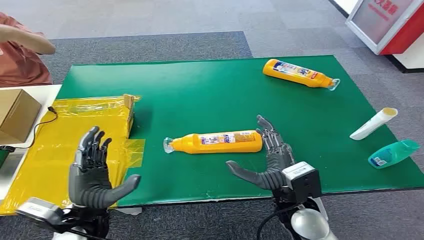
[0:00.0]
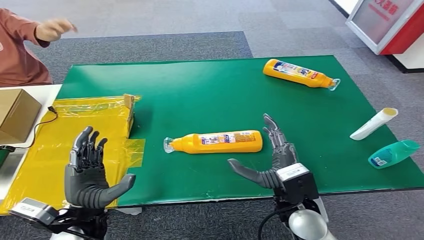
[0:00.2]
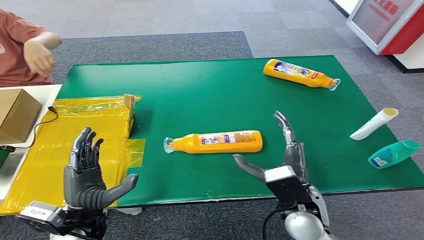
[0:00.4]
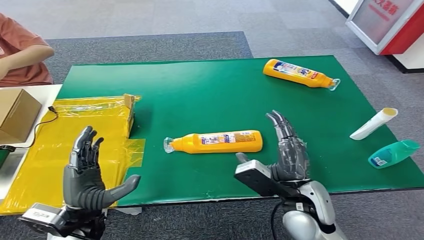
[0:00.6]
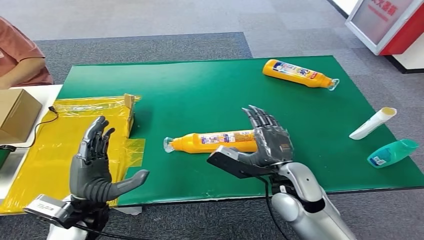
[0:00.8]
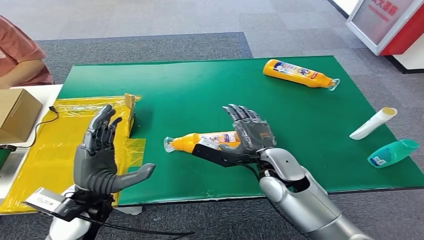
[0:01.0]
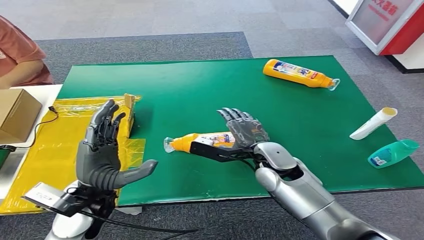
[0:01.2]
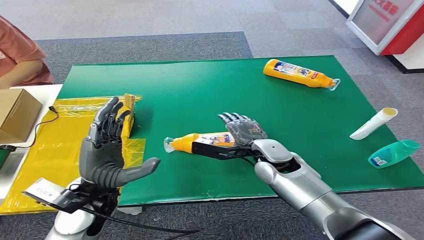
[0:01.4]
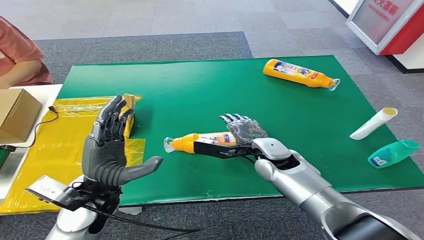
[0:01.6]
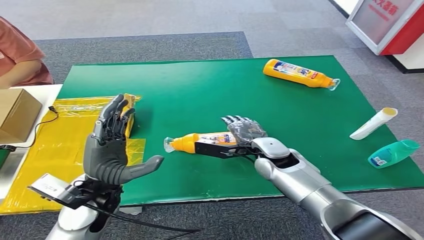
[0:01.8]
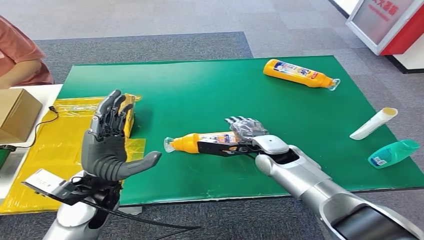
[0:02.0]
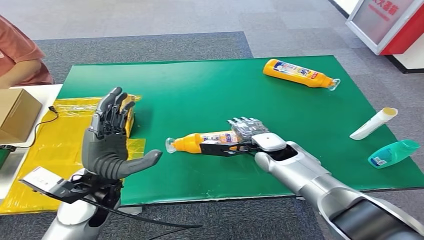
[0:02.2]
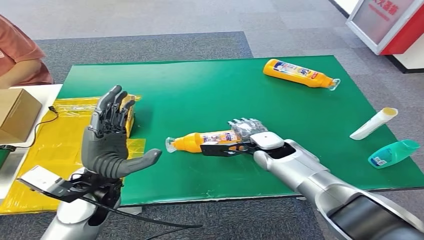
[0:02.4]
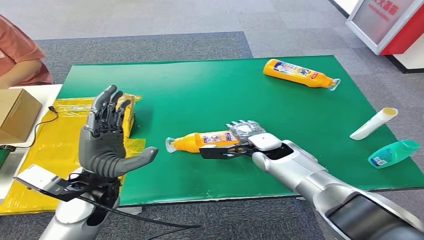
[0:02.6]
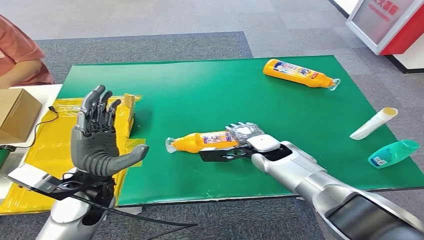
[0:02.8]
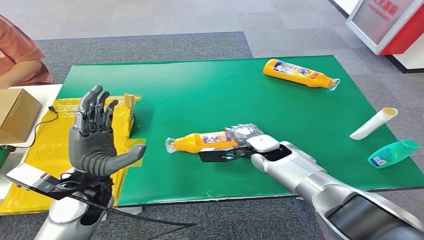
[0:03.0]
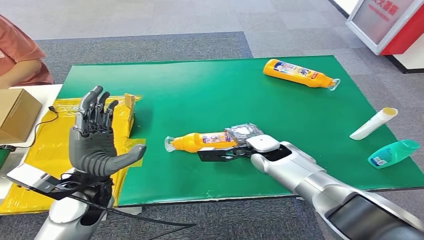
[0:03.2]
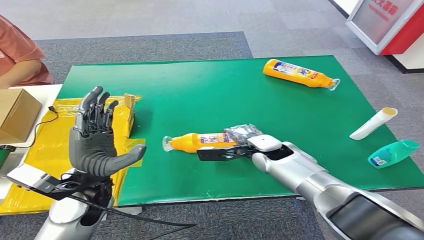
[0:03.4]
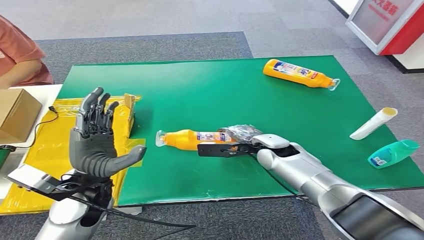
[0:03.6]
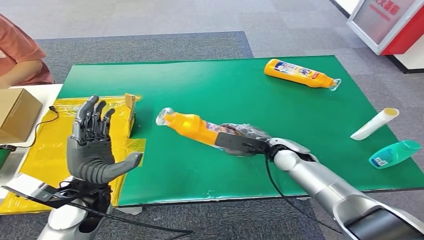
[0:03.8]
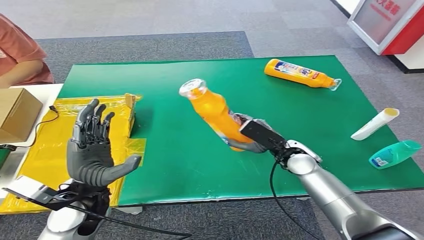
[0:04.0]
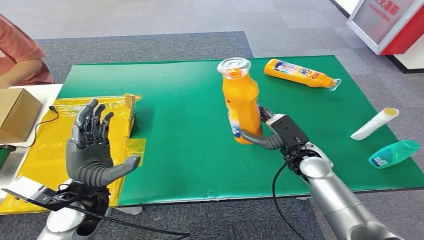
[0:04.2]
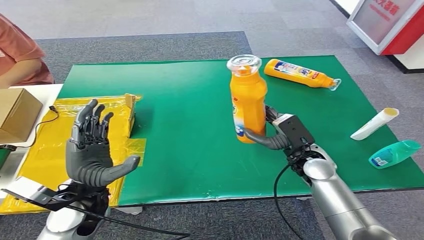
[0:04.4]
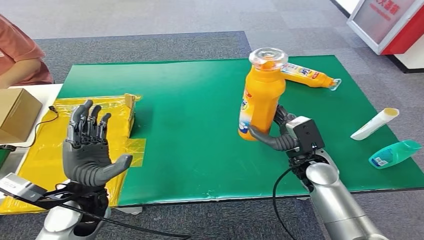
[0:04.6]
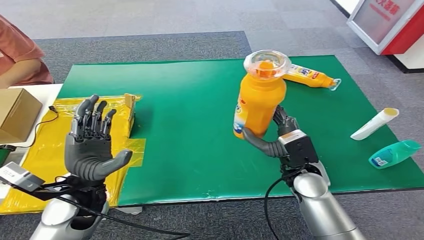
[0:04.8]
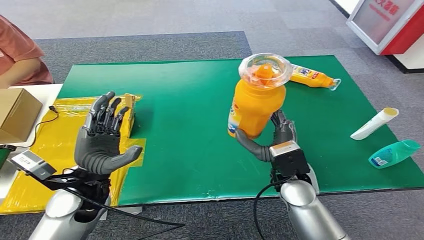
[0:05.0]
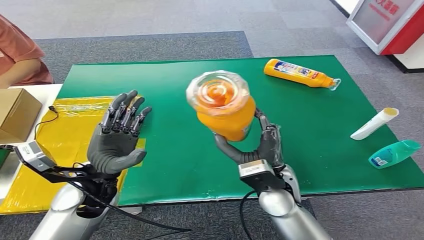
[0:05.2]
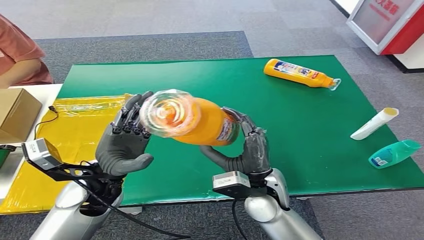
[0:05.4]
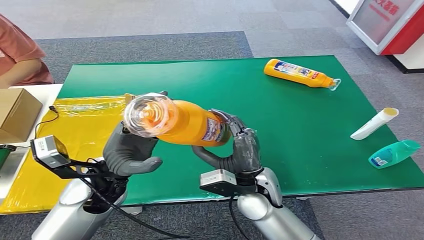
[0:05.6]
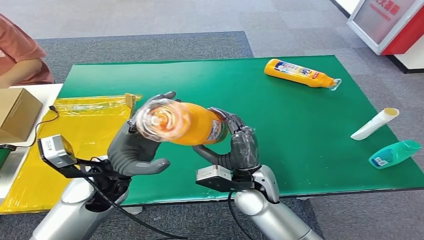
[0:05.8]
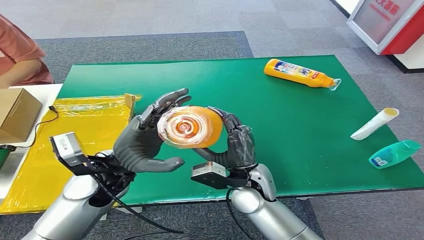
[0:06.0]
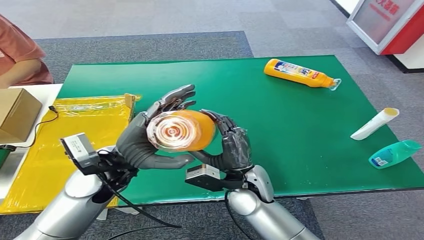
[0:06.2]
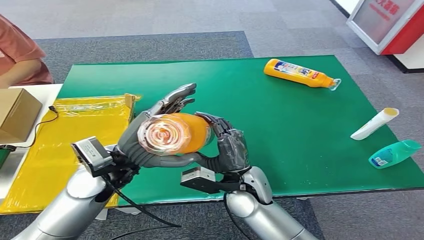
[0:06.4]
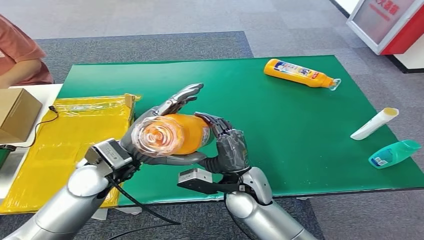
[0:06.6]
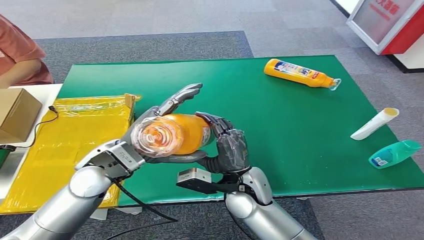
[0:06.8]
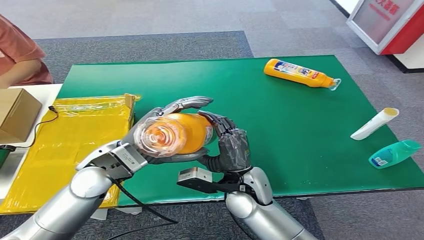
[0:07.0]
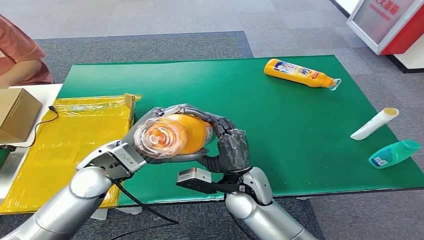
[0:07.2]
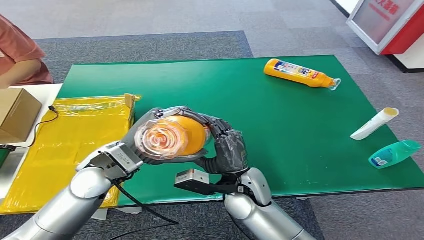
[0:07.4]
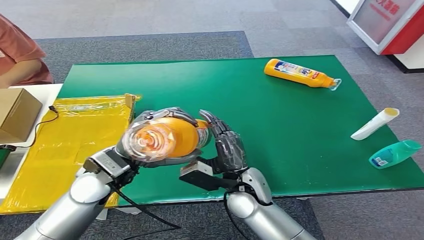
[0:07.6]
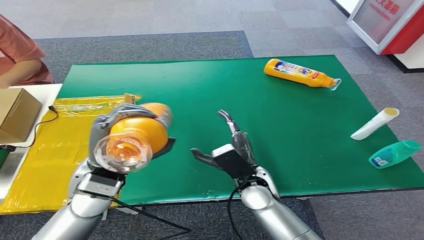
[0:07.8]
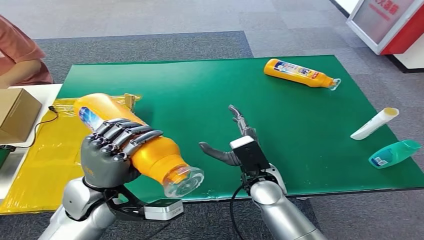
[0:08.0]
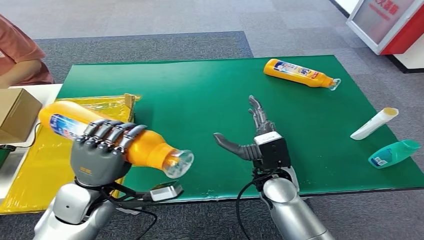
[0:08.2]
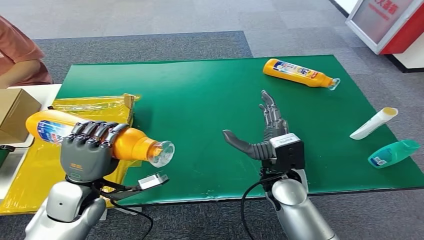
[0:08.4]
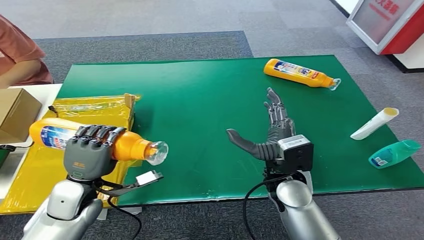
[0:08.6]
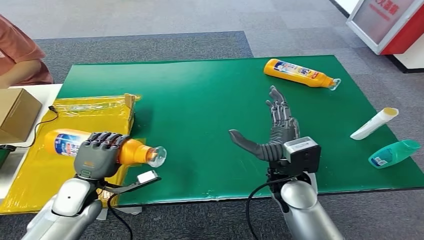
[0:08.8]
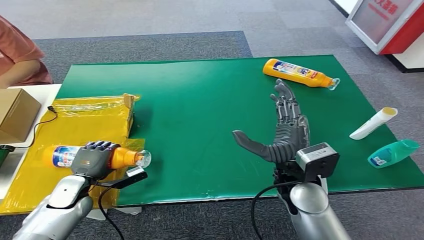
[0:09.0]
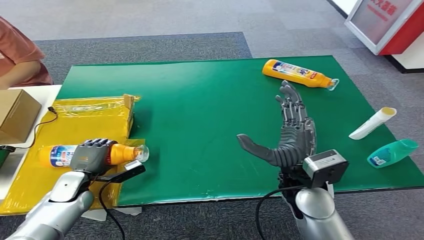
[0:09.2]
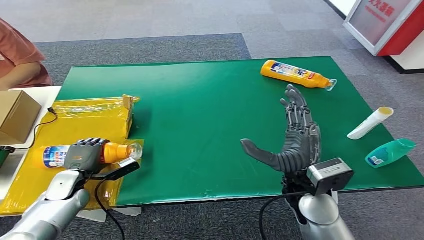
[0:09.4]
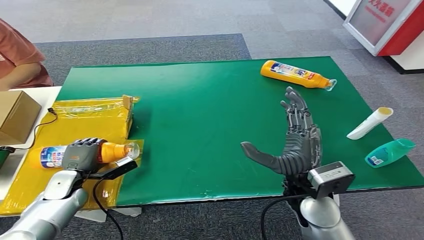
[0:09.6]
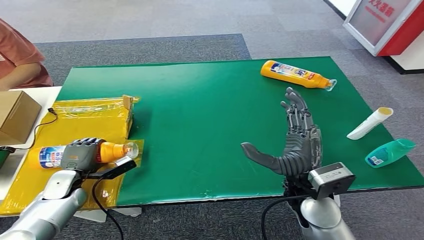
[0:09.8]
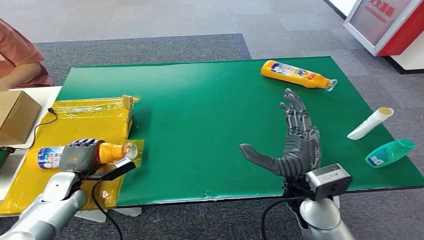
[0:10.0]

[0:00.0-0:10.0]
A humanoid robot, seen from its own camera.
Step, 0:00.0 to 0:04.4: Pick up the bottle from the table.

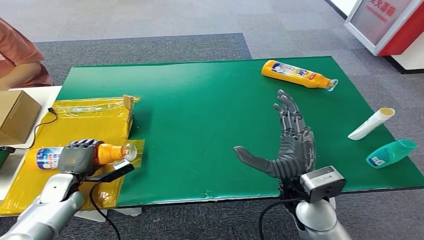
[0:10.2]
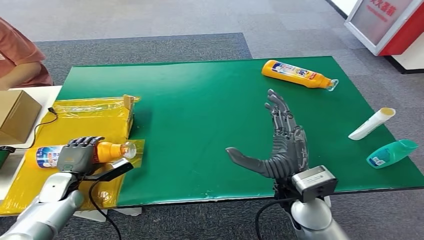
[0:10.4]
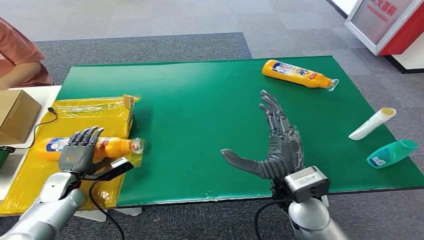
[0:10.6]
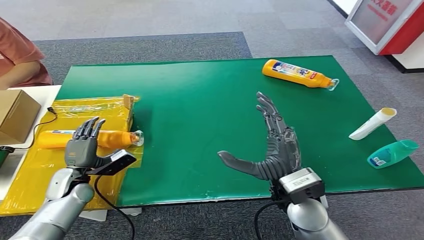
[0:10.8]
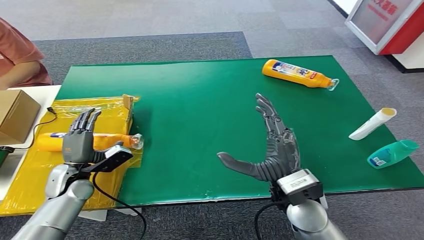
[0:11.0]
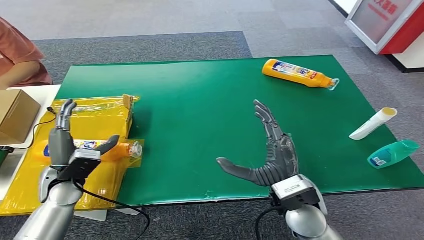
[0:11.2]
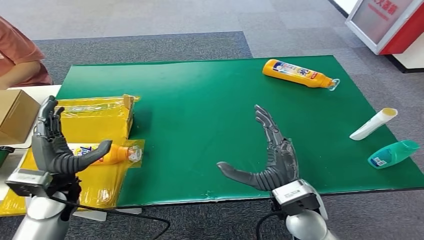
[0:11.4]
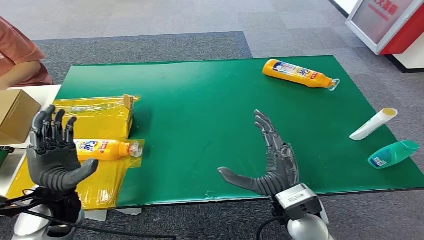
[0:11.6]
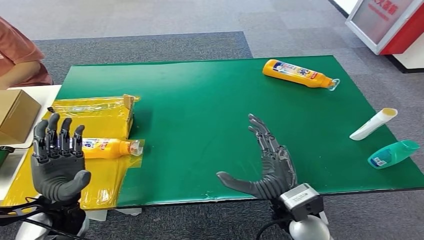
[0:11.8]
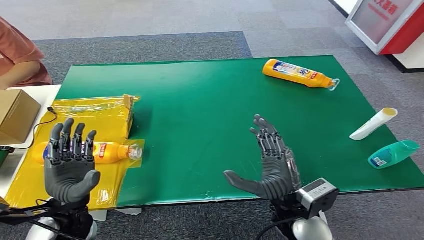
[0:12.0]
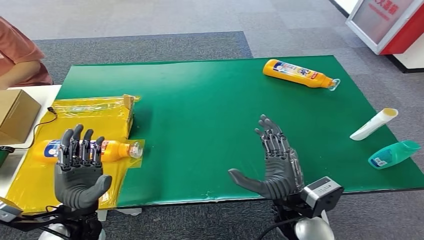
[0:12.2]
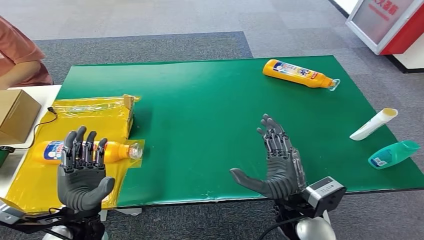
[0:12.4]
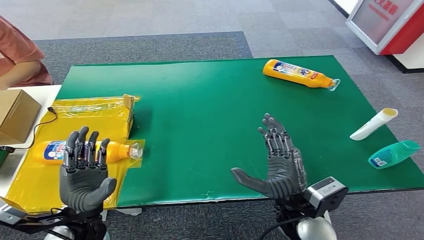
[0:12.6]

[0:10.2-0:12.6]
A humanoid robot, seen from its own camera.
Step, 0:10.2 to 0:12.6: Turn the bottle to the front side.
0:10.2 to 0:11.4: The left hand moves upward and to the right, some 15 cm.
0:11.4 to 0:12.6: The left hand moves backward and to the right, about 10 cm.
